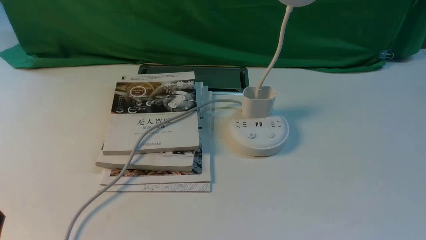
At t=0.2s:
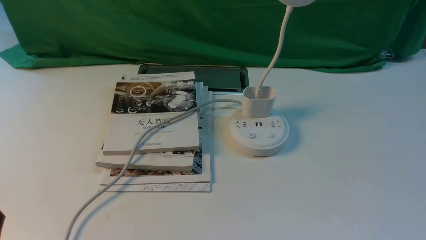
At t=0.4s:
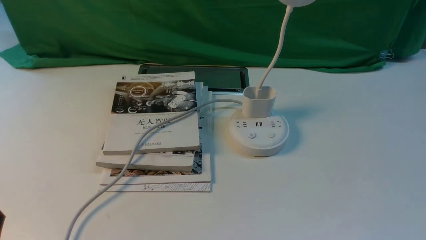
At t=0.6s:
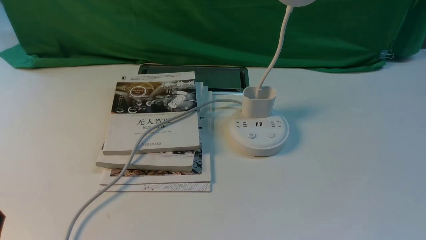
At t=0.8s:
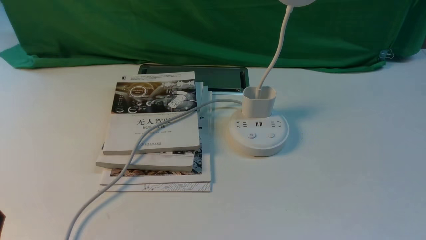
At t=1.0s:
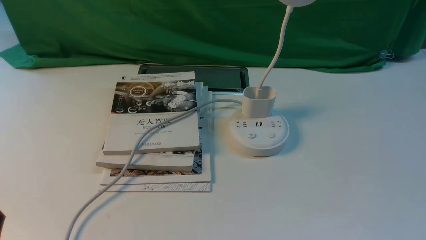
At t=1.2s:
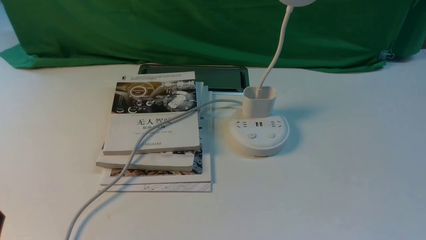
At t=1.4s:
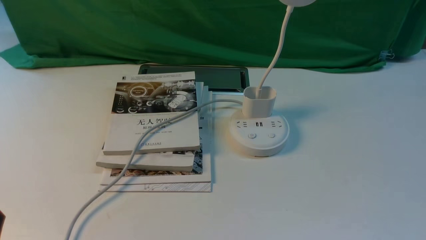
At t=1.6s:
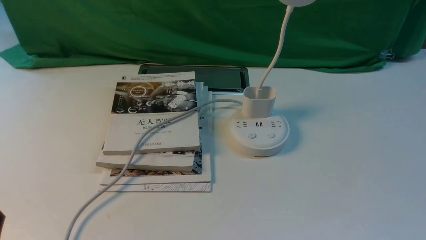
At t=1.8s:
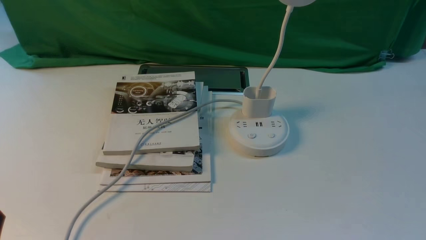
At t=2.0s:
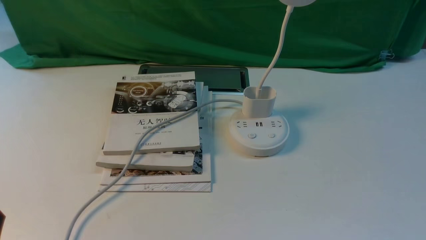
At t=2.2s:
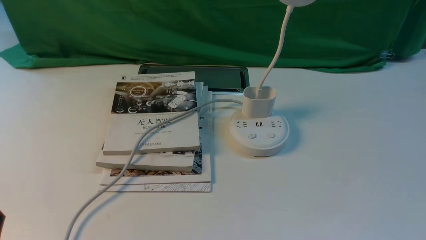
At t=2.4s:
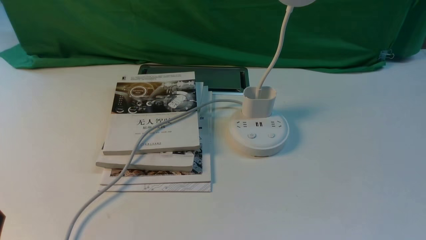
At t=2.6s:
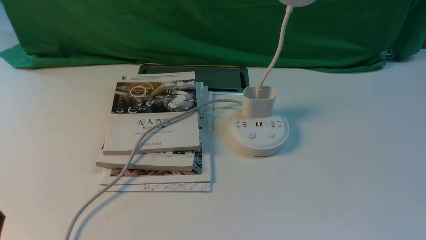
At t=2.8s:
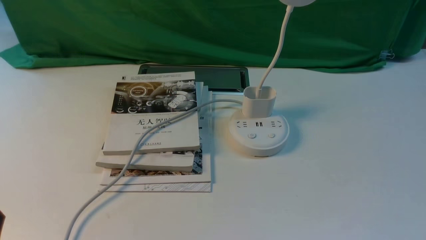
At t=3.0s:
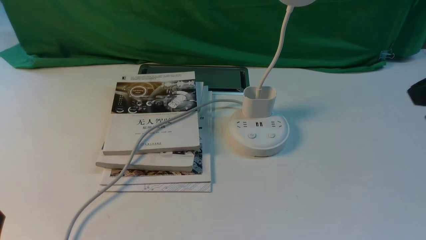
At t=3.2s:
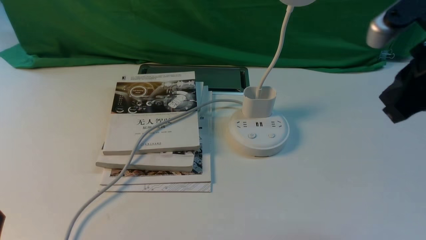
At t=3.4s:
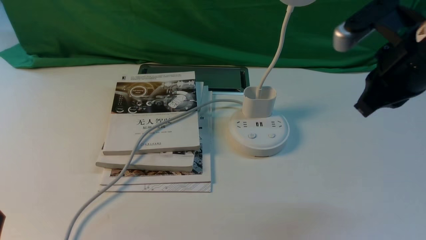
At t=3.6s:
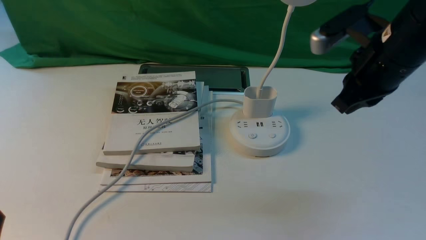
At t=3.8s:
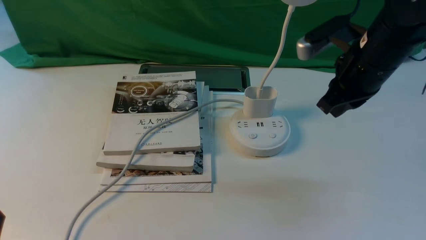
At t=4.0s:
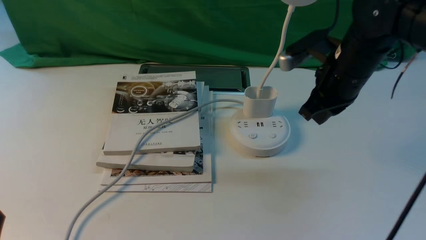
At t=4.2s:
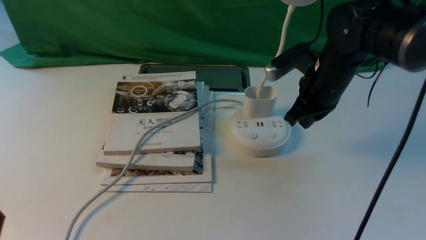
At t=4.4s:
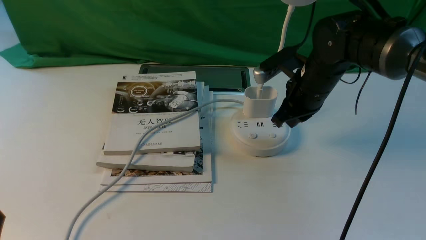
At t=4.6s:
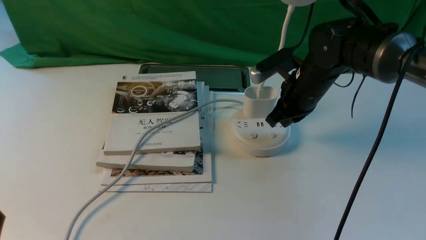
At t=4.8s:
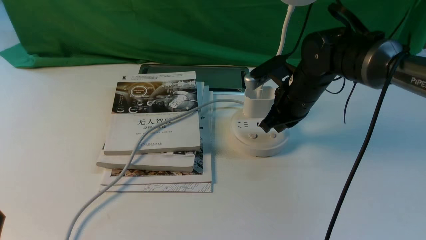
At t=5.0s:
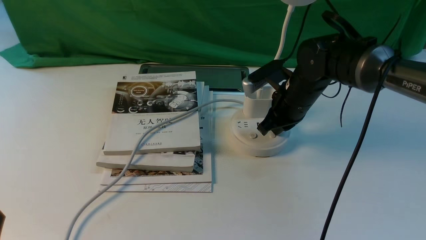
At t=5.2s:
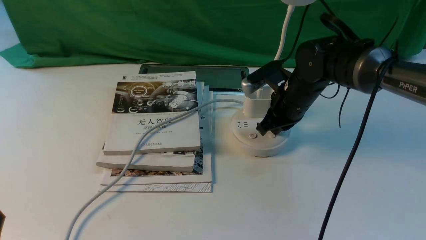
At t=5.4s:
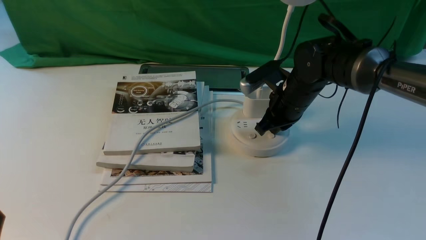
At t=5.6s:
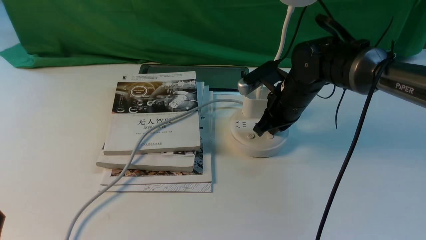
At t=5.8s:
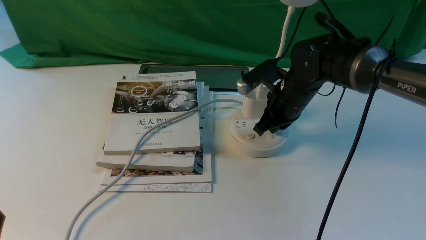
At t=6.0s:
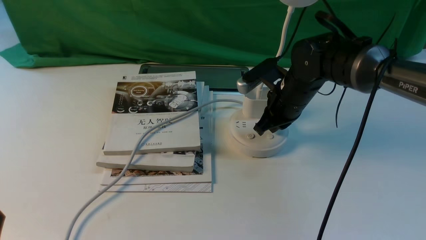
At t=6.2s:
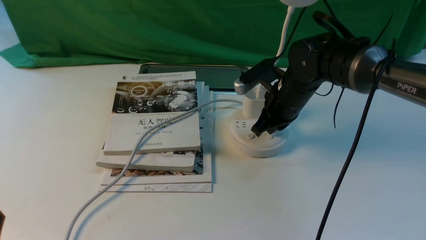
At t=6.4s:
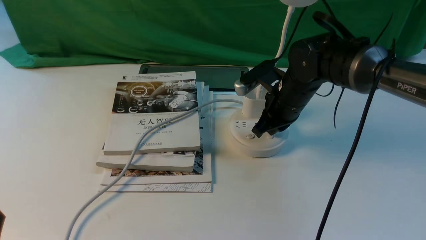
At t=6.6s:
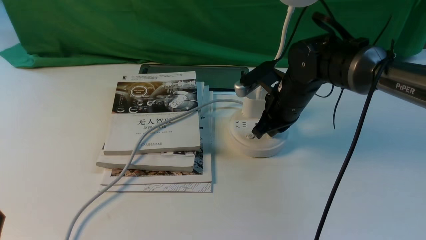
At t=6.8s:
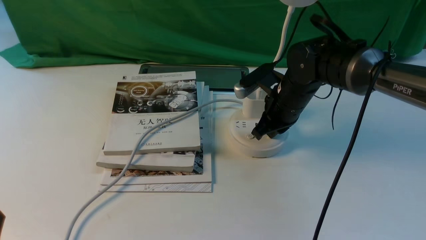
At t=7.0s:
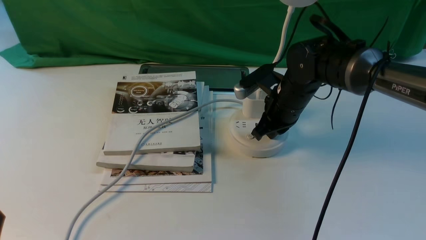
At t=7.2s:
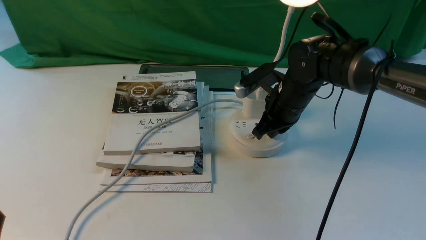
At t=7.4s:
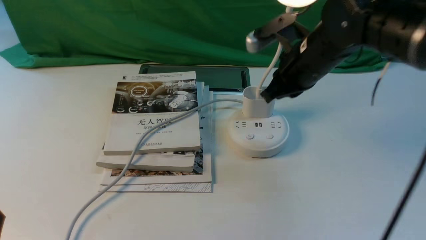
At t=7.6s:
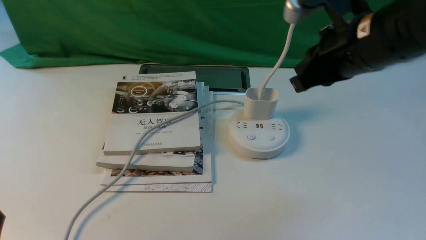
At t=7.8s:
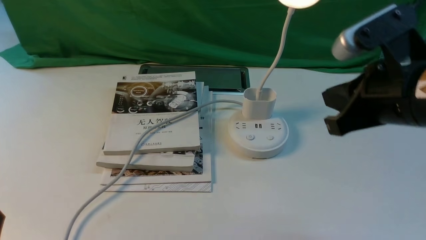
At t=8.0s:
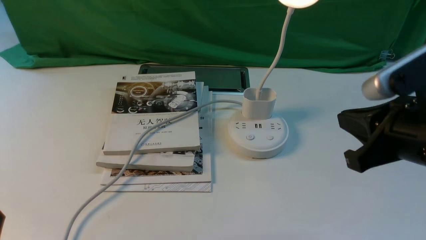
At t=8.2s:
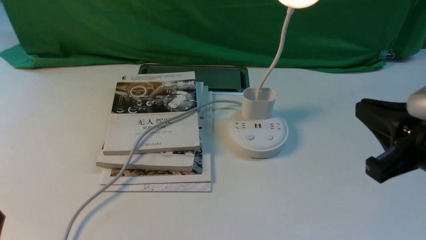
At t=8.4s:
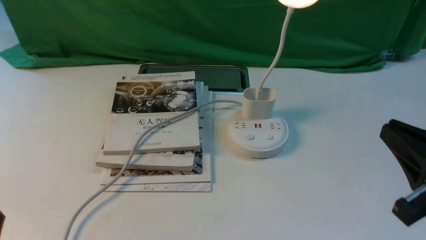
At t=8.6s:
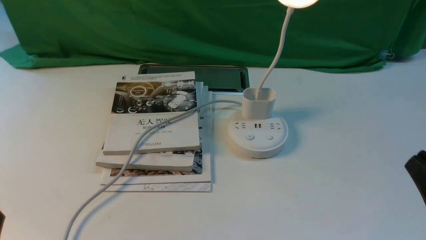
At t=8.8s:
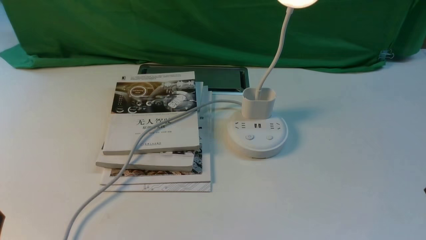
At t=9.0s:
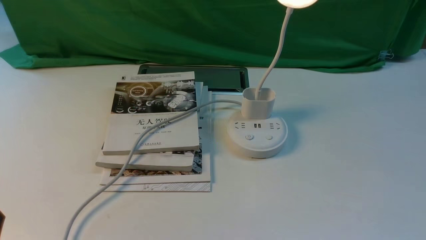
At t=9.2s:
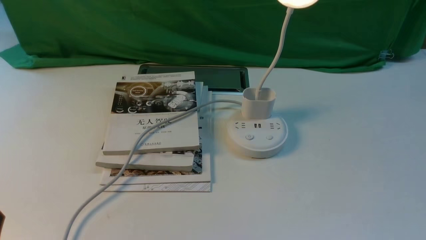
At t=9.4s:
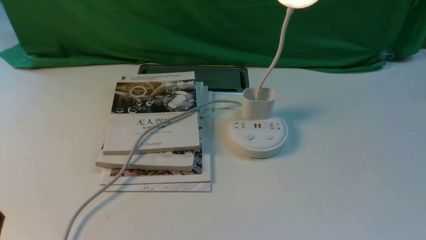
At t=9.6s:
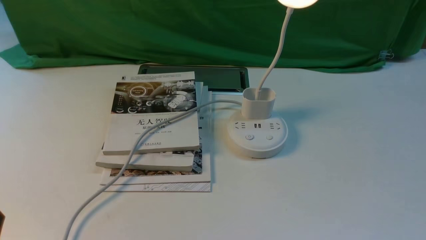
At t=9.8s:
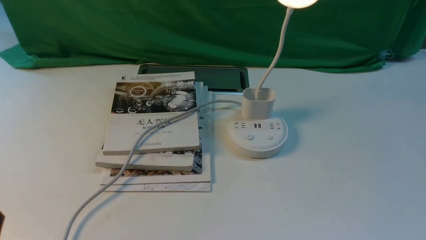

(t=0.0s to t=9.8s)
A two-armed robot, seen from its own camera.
Step, t=0.0s - t=7.2s: use the right arm to press the button switch on the lamp holder.
t=2.8s - t=4.2s: The right gripper shifts approximately 30 cm forward, downward and to the left.
t=4.2s - t=5.6s: The right gripper goes roughly 10 cm downward.
t=5.6s - t=7.0s: Neither gripper changes place.
t=7.0s - t=8.4s: The right gripper shifts about 30 cm backward, to the right and upward.
t=8.4s - t=9.8s: The right gripper goes approximately 15 cm downward, backward and to the right, and opens up.

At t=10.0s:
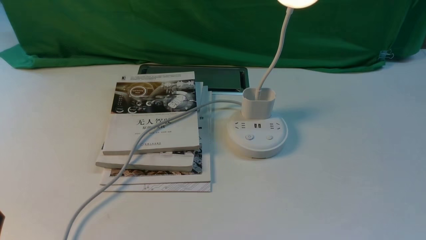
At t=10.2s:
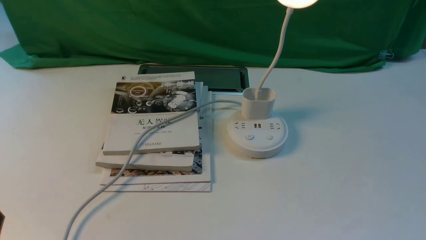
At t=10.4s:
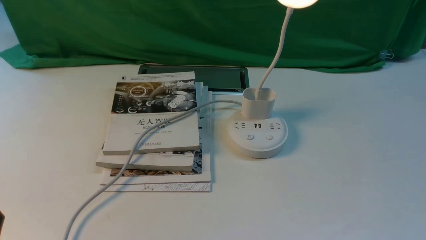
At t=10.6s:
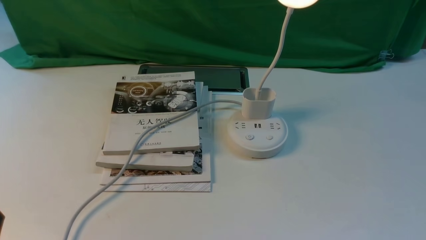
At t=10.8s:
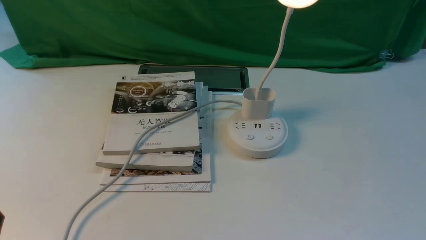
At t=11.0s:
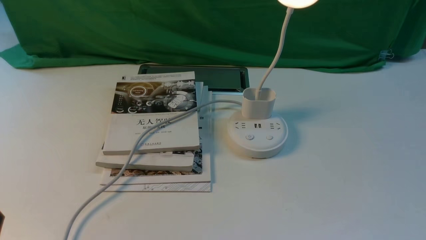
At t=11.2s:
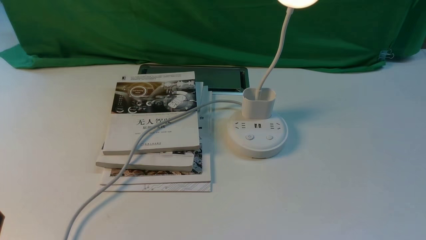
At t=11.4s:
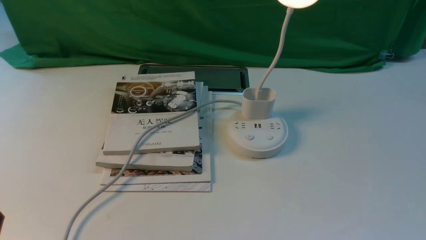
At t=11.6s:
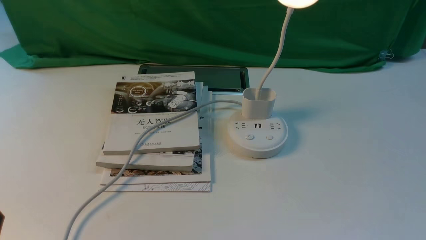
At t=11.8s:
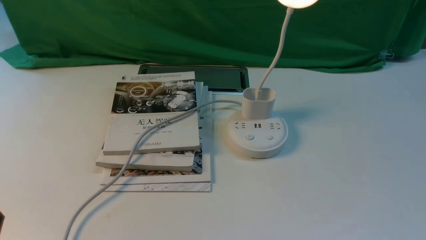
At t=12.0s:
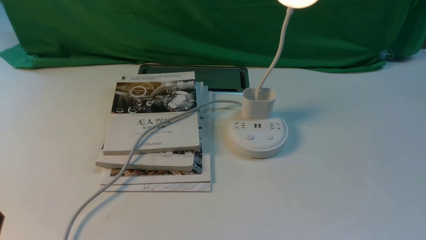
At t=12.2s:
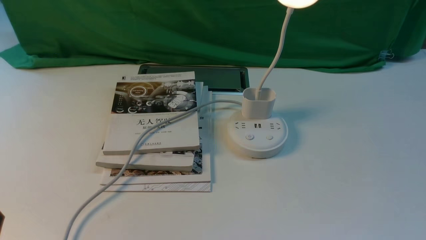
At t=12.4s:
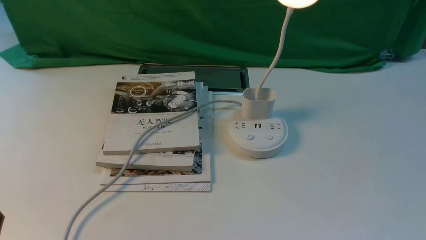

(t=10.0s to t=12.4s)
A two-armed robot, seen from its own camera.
t=11.2s - t=12.4s: The two grippers keep their place.
